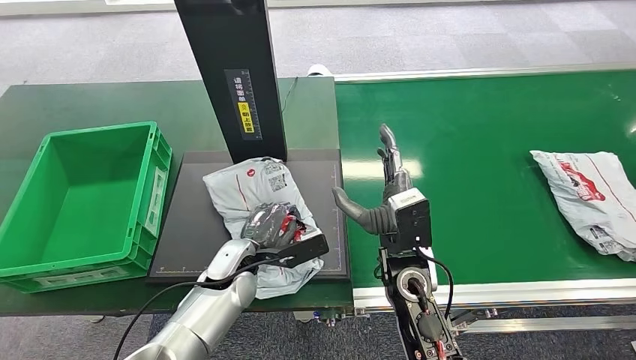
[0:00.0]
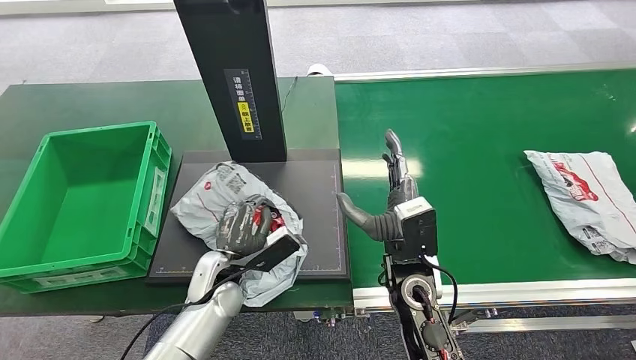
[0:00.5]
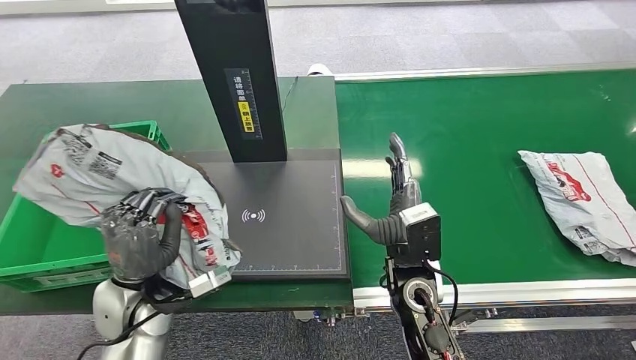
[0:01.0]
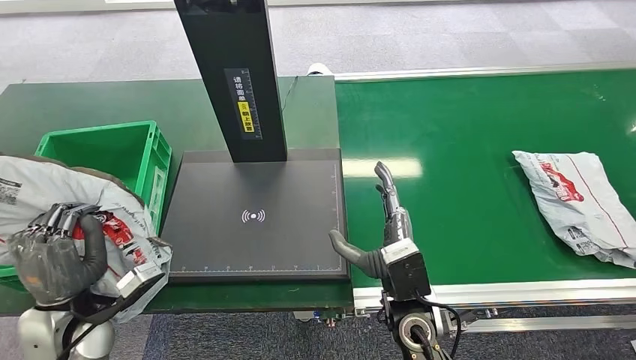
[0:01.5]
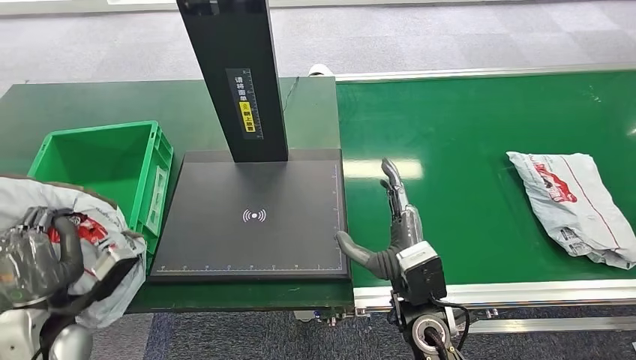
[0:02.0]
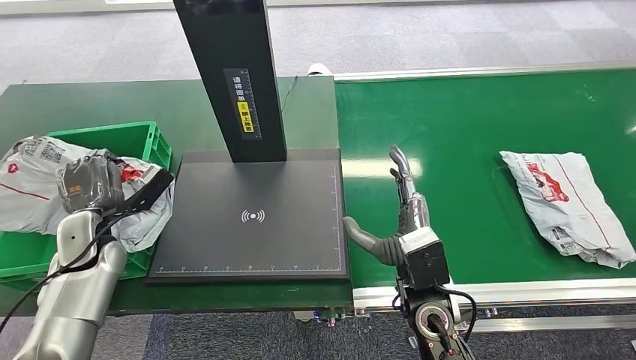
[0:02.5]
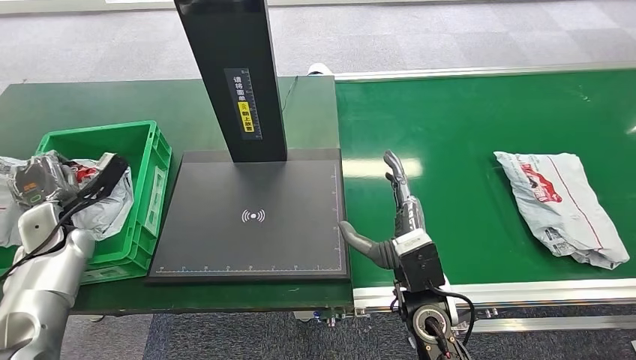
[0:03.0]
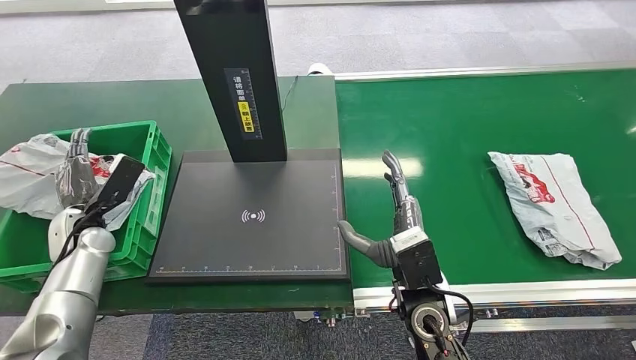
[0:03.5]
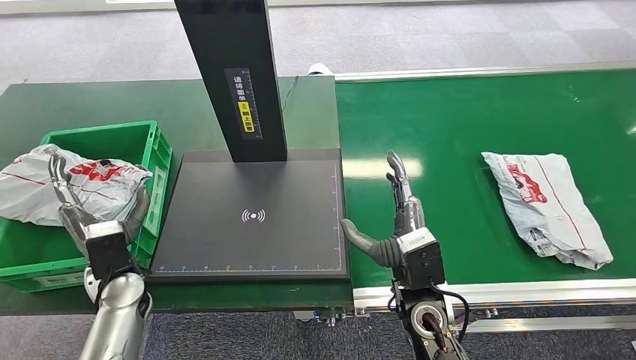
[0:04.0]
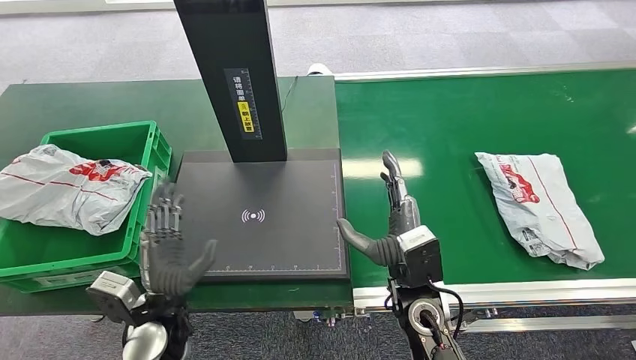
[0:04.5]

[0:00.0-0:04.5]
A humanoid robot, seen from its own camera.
Step, 0:02.0 to 0:04.5: Place the package into the parcel locker.
